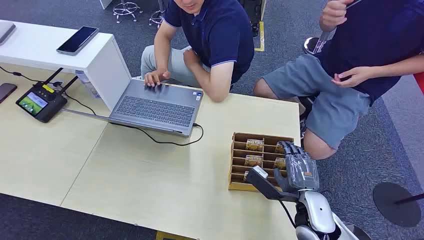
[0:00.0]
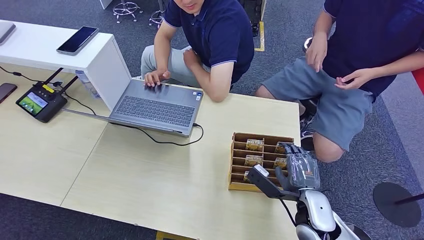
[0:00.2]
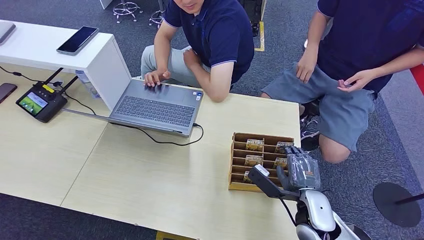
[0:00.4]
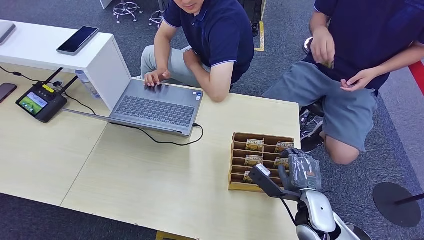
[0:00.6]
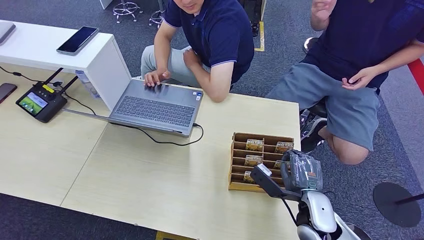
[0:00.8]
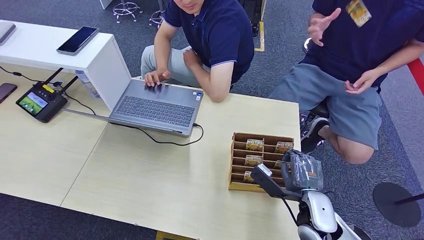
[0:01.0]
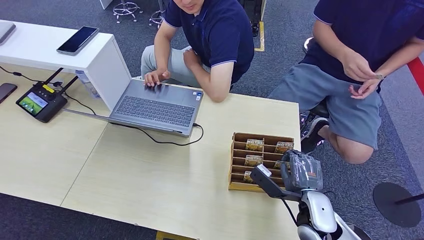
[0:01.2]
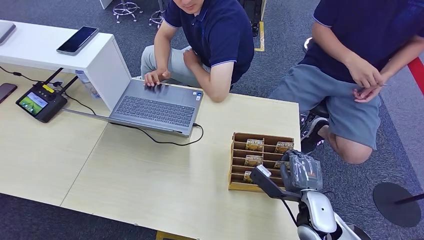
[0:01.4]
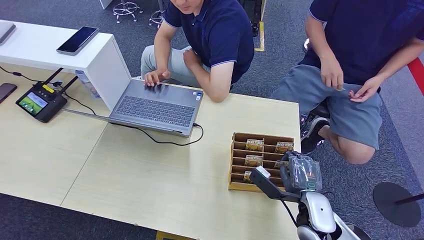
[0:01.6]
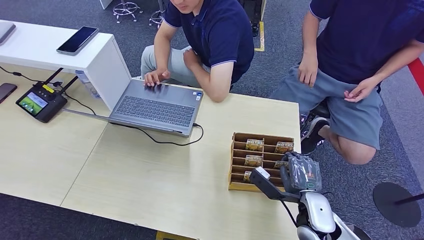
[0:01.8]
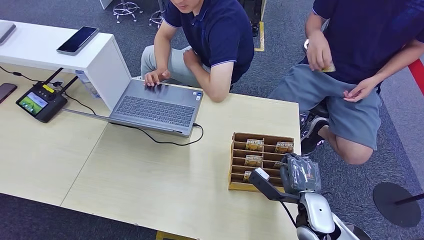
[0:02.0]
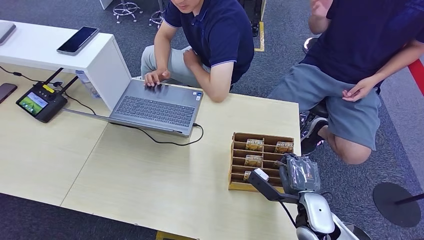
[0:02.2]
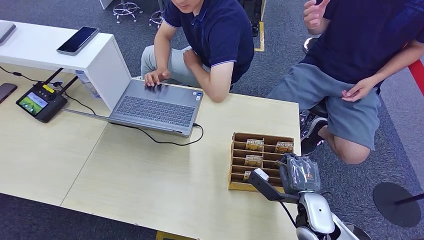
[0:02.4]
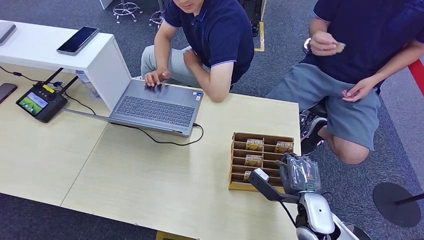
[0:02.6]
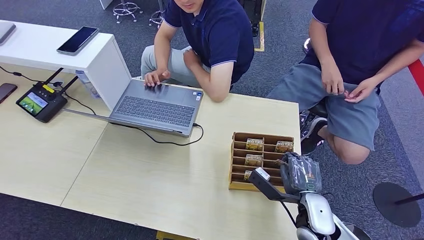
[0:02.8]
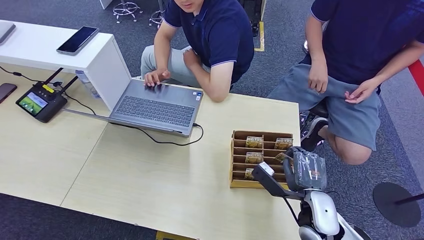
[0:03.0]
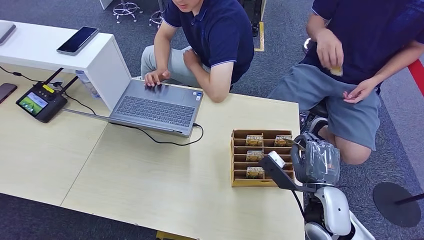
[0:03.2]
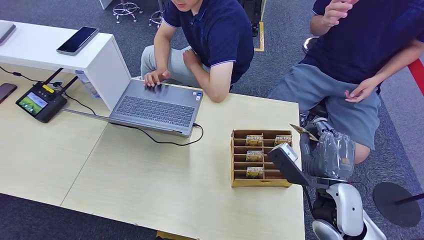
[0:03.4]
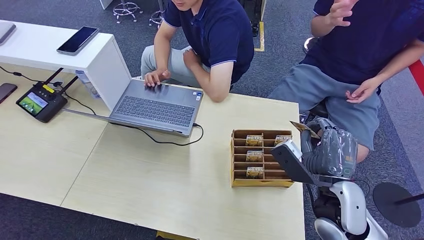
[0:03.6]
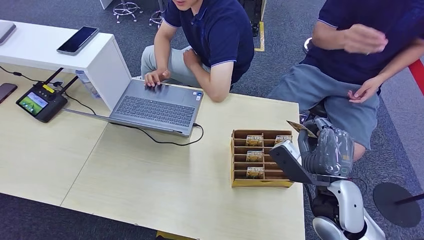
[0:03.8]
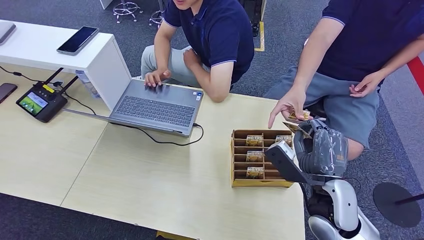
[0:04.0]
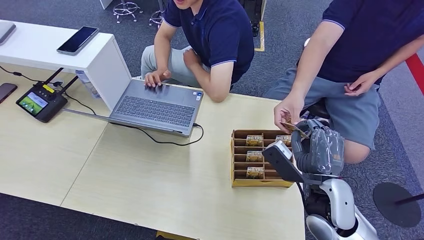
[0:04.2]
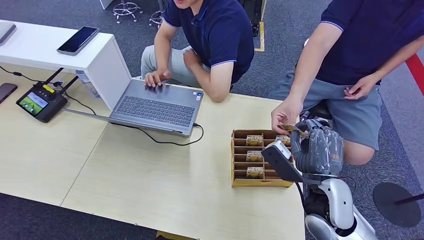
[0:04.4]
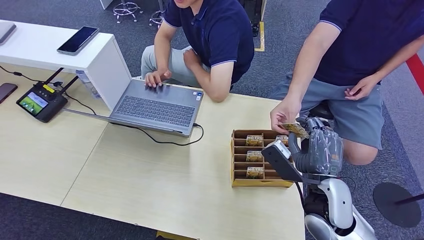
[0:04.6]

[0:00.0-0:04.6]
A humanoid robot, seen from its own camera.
Step, 0:00.0 to 0:03.0: Pick up the room card from the card holder.
Step, 0:03.4 to 0:04.6: Hand the room card to the target.
0:01.6 to 0:03.0: There are only small adjustments of the hands.
0:03.0 to 0:04.6: The right hand heads upward, covering some 5 cm.
